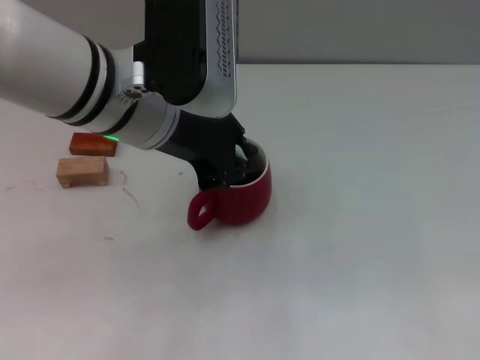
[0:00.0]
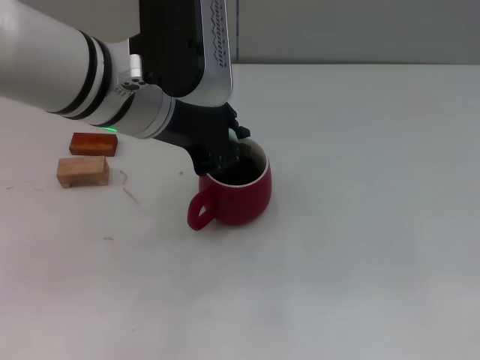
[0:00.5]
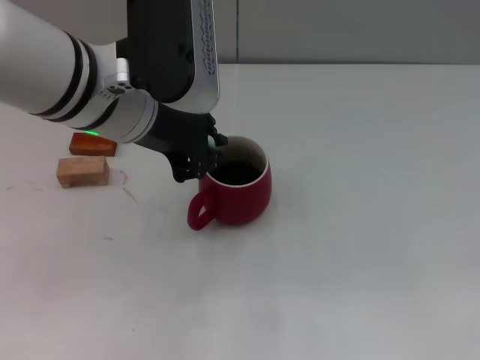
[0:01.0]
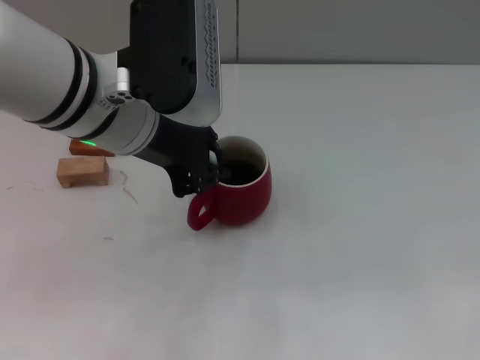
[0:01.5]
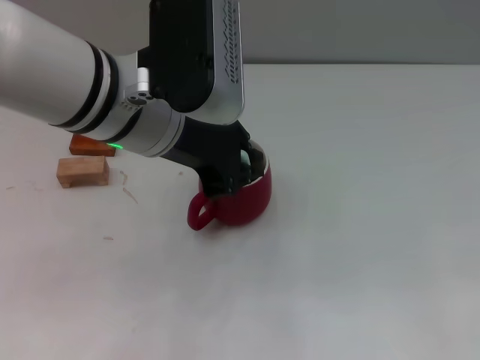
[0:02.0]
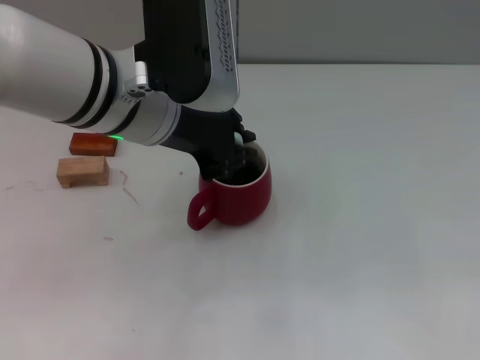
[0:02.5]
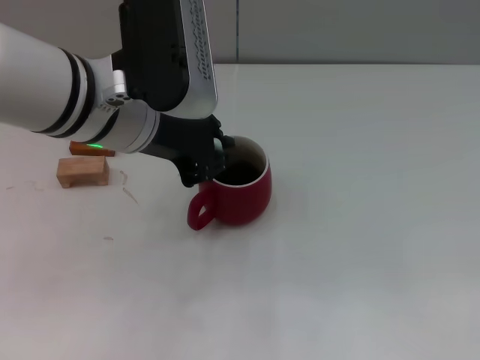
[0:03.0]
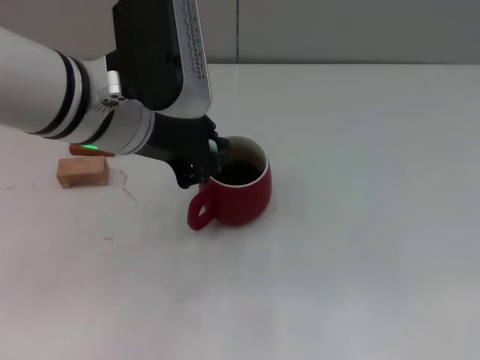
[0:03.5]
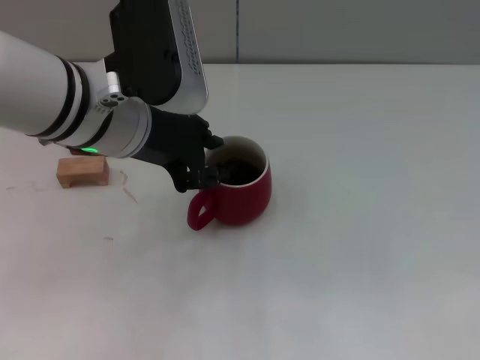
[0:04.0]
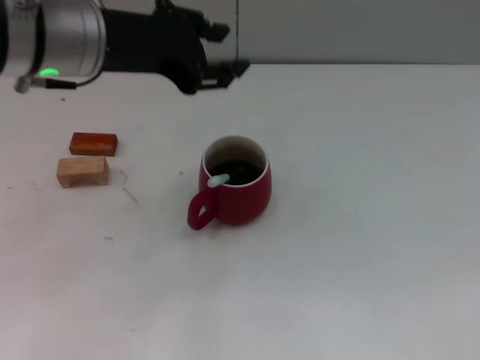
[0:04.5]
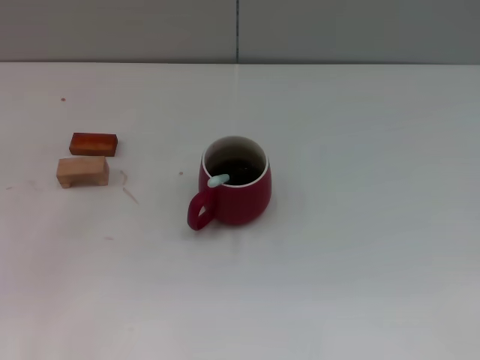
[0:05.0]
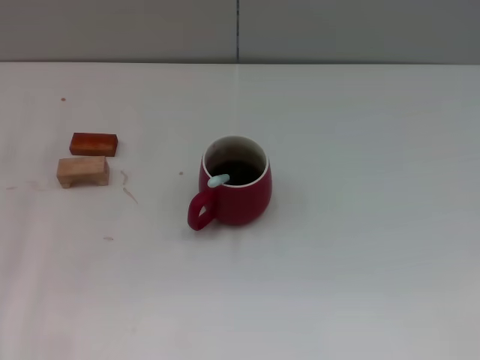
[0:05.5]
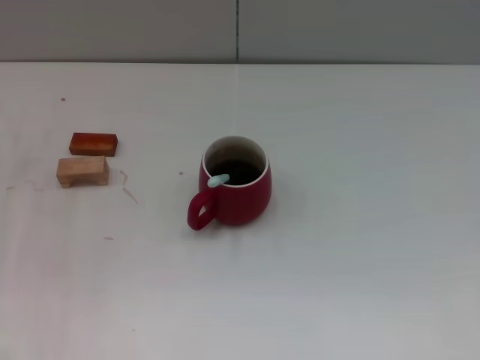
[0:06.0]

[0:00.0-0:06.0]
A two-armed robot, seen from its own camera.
Task of the whole recording: Move the red cup to the center, lift the blue spoon, stir it three times in the cup, and put the spoon into the cup.
Step, 0:00.0 to 0:04.0: Stir the coffee in the cup with the left gripper.
0:00.0 to 0:04.0: The grippers stay close to where they were, moving slightly.
0:04.0 to 0:06.0: The left gripper is displaced to the left and downward by roughly 25 cm.
